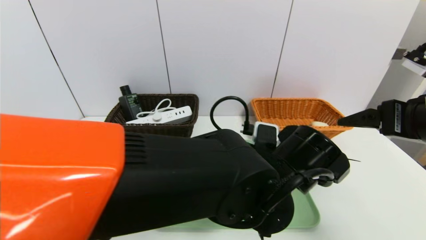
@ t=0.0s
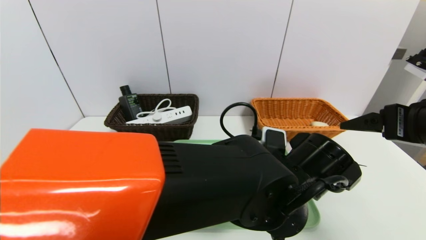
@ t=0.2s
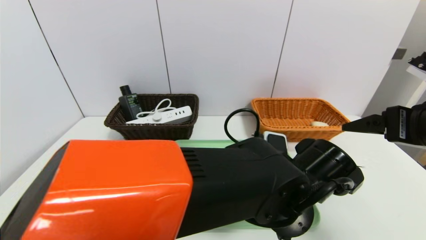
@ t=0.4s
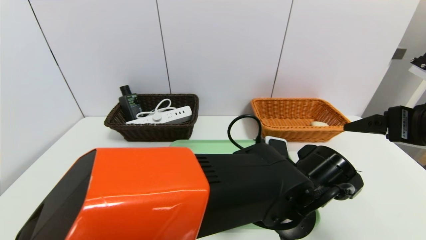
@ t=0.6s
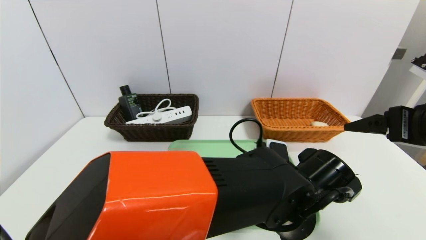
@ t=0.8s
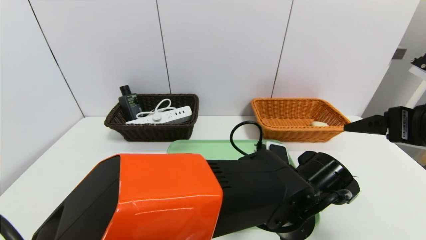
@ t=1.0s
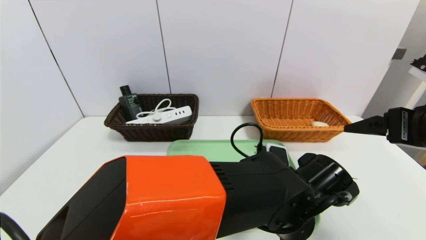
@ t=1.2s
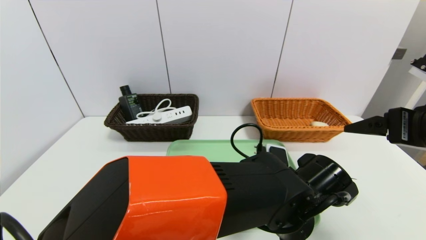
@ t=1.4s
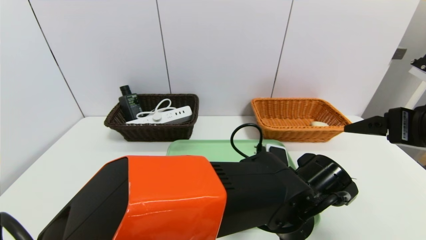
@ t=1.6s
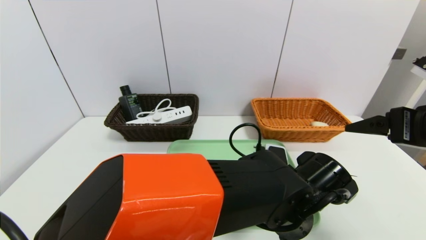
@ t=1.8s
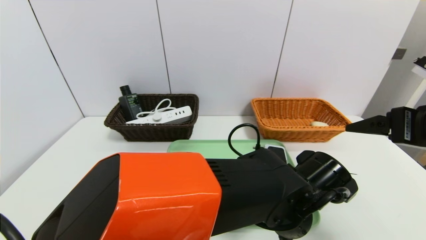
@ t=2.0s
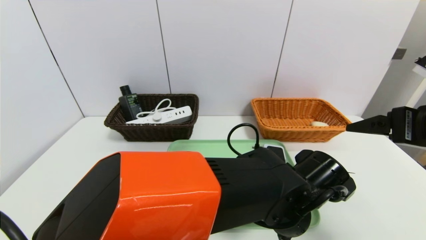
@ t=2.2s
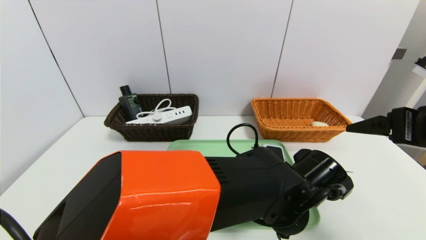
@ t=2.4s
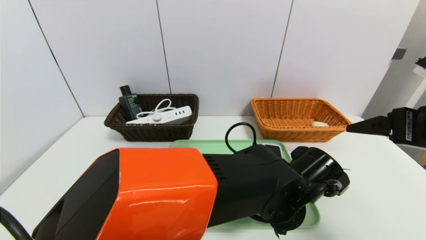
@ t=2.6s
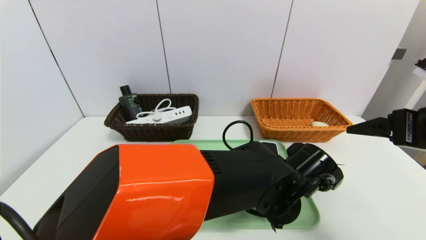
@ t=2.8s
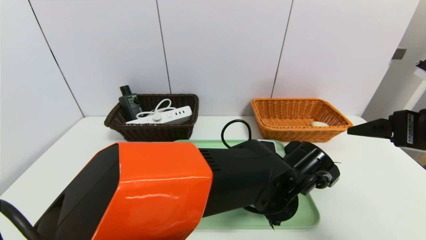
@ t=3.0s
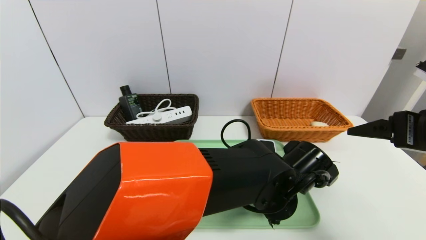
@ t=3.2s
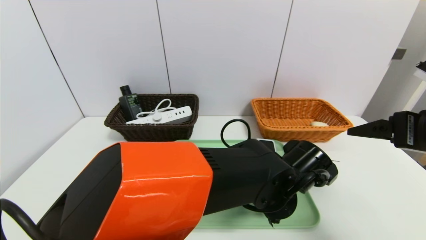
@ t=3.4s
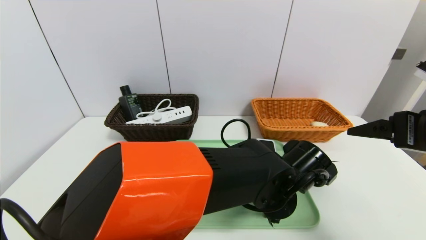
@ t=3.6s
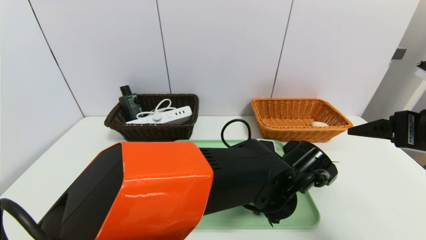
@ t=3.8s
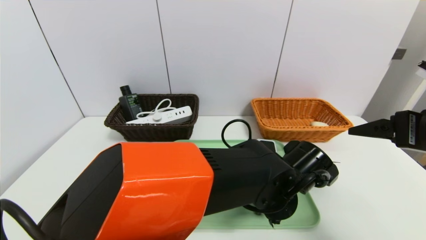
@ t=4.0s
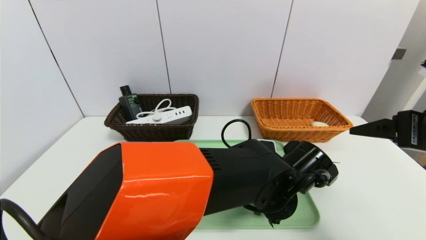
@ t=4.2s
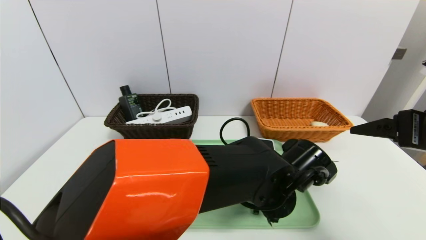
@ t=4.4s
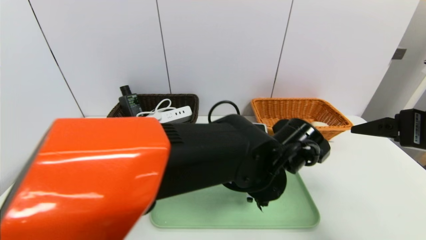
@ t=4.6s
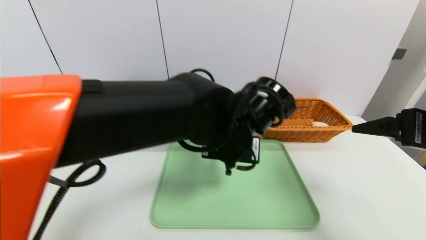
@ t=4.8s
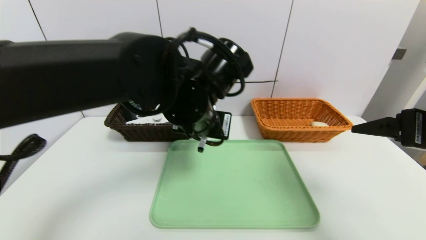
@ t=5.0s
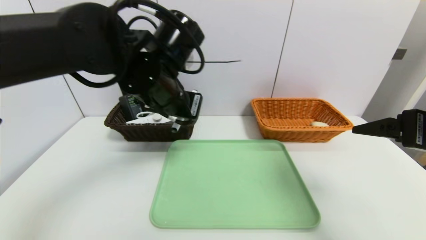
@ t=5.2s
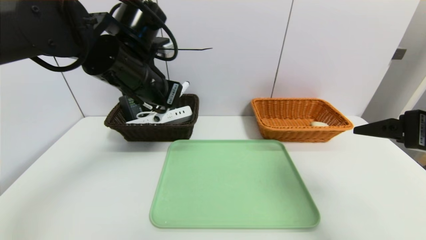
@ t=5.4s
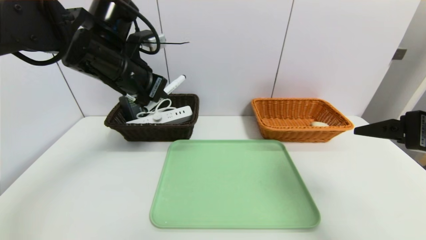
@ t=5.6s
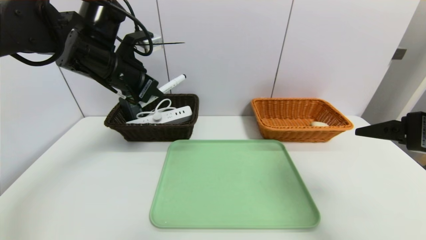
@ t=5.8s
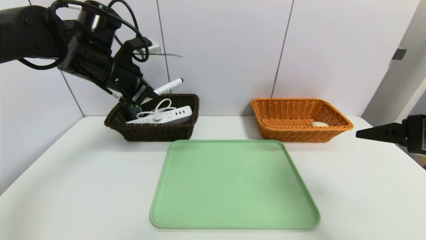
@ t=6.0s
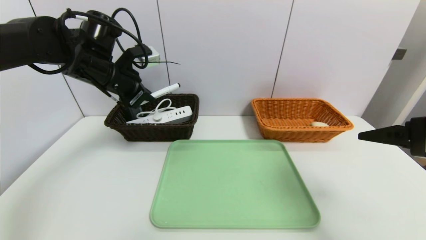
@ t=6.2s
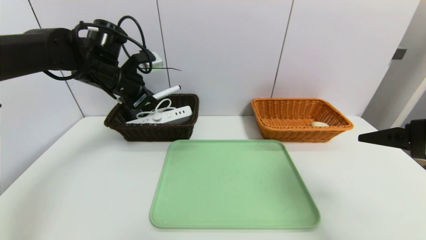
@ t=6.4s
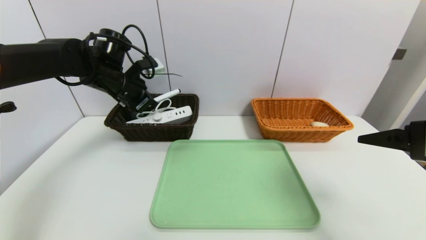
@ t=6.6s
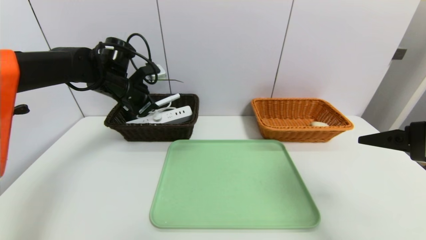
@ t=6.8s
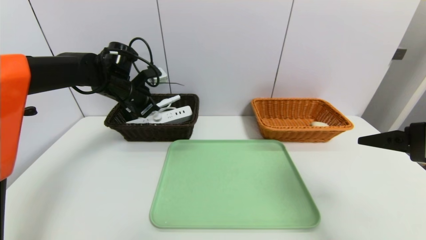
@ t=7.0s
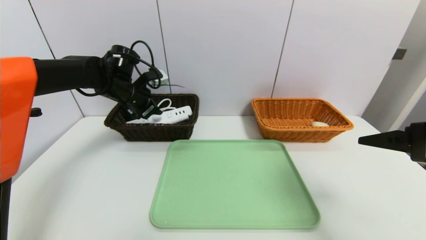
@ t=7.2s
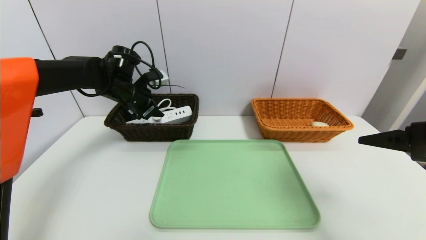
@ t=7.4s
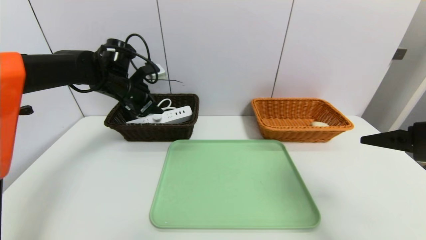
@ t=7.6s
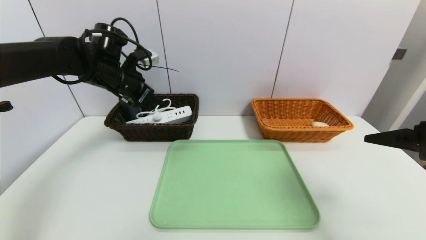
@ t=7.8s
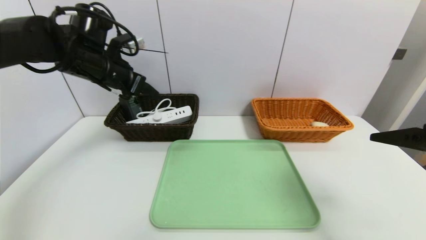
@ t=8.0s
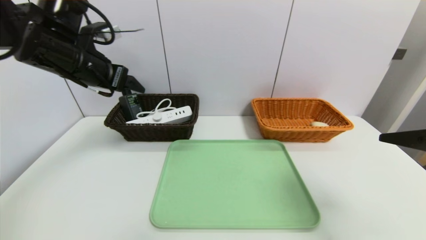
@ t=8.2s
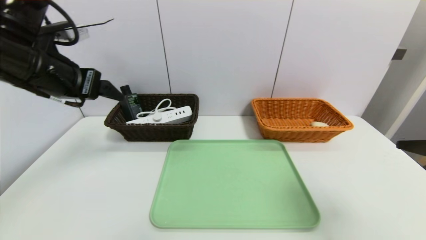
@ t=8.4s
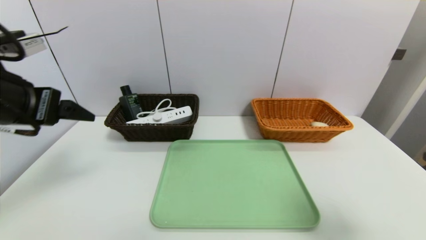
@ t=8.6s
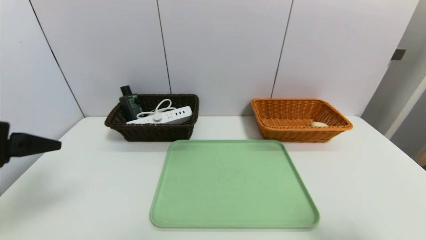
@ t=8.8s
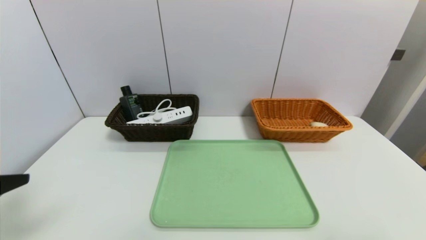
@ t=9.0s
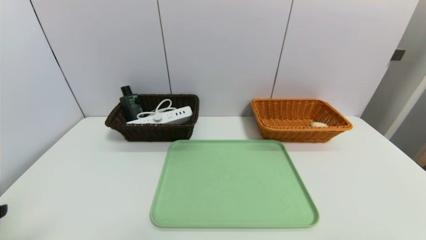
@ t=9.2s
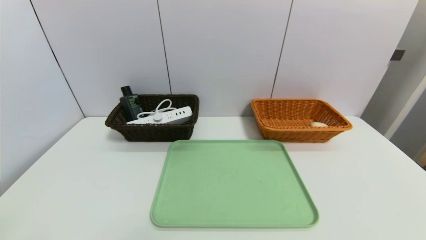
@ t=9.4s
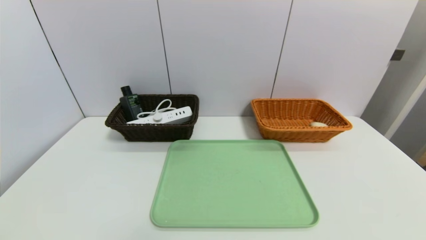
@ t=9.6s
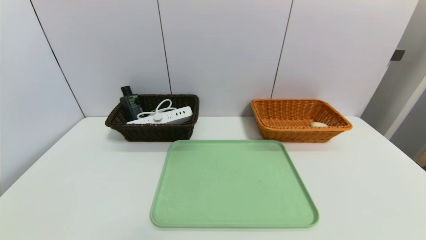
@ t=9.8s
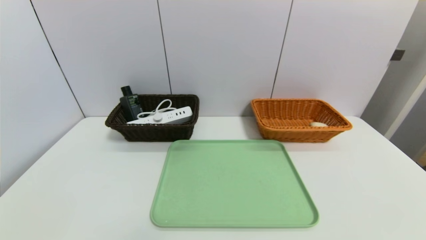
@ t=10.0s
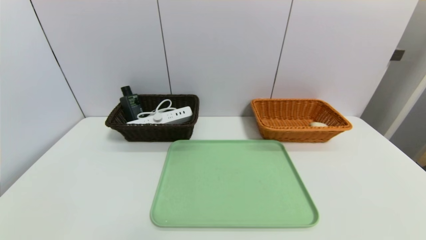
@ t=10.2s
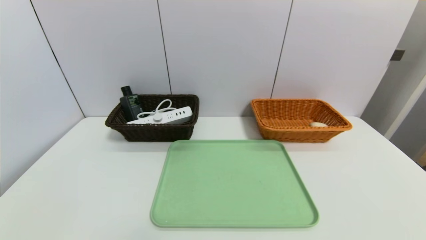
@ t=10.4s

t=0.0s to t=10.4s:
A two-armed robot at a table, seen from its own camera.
Task of the whole recording: place the food in the right basket with the right gripper, and place the non food items in the left basket with the left gripper.
Step, t=0.0s to t=7.6s: Grasp the black marker and put it in the left basket.
t=0.0s to t=1.4s: The left gripper travels downward by some 5 cm.
t=1.4s to t=3.0s: The grippers make only small movements.
t=3.0s to t=4.4s: The left gripper closes.
t=4.4s to t=6.0s: The left gripper goes some 35 cm to the left, upward and forward.
t=6.0s to t=7.4s: The left gripper heads forward and downward, covering about 10 cm, and opens up.
t=7.4s to t=9.0s: The left gripper heads backward, covering roughly 35 cm, and opens up; the right gripper travels backward by about 15 cm.
t=9.0s to t=10.4s: The left gripper heads downward and backward, covering some 20 cm.
